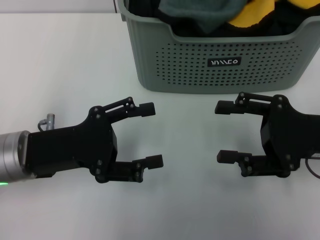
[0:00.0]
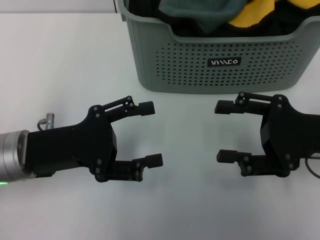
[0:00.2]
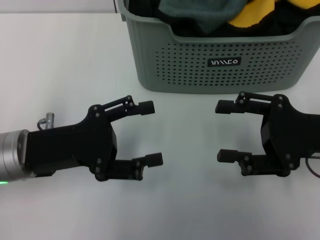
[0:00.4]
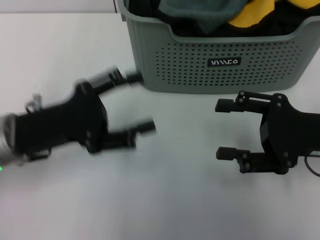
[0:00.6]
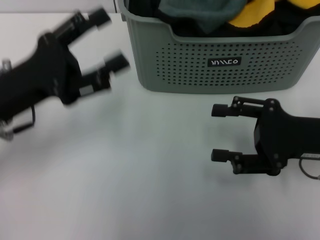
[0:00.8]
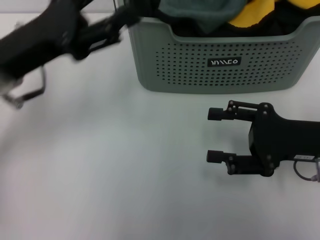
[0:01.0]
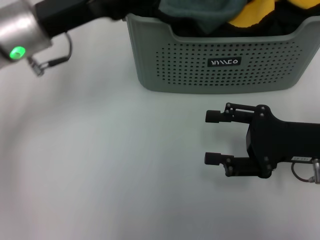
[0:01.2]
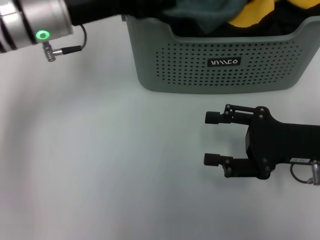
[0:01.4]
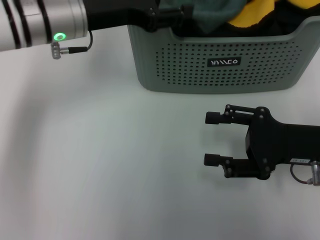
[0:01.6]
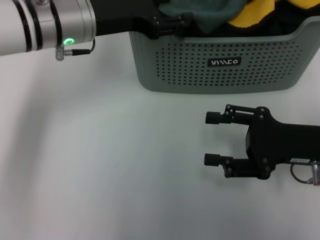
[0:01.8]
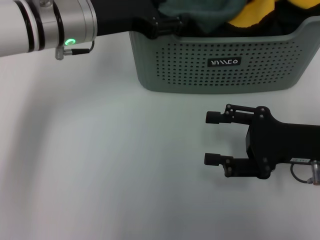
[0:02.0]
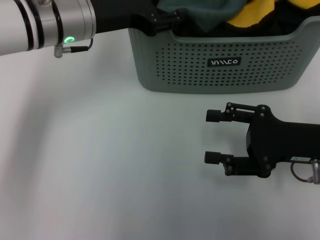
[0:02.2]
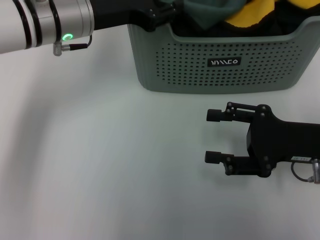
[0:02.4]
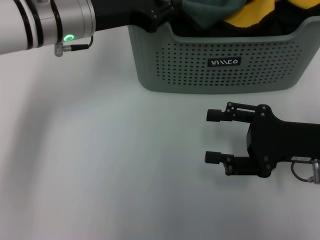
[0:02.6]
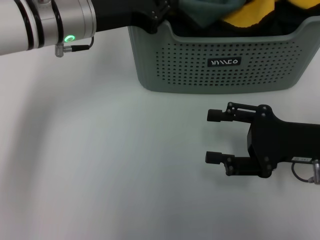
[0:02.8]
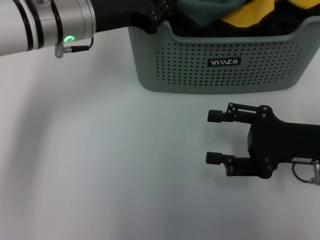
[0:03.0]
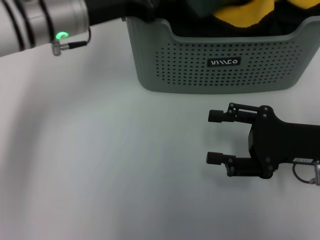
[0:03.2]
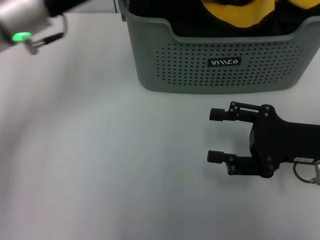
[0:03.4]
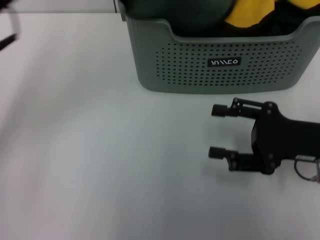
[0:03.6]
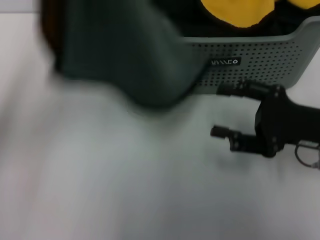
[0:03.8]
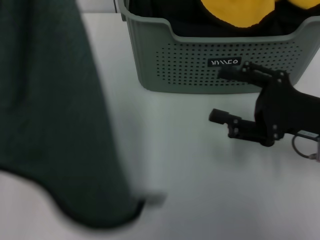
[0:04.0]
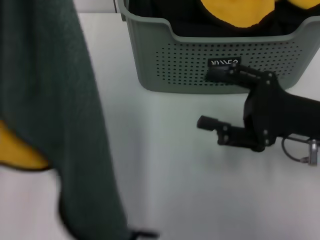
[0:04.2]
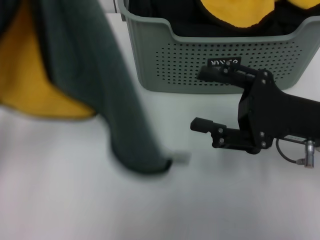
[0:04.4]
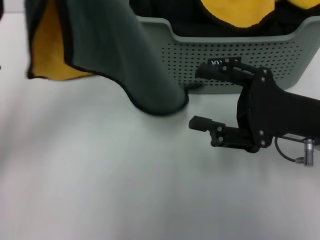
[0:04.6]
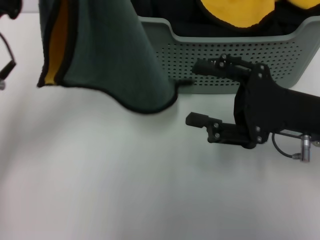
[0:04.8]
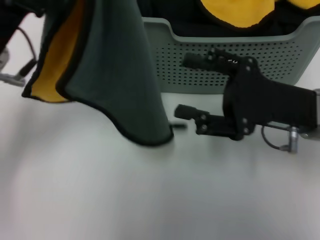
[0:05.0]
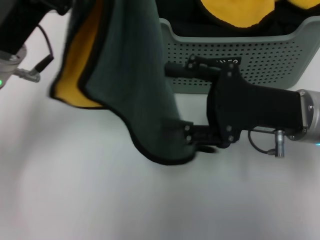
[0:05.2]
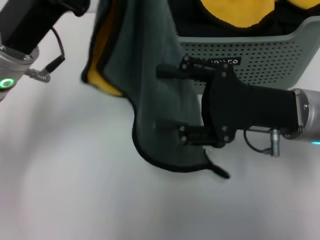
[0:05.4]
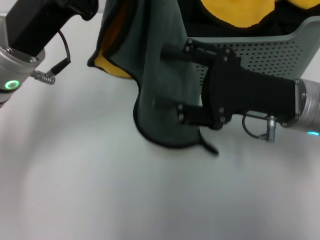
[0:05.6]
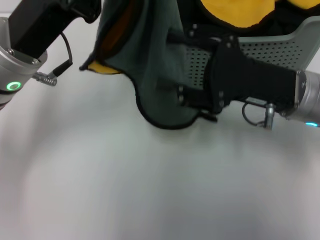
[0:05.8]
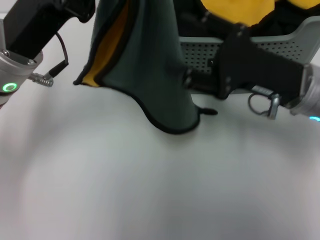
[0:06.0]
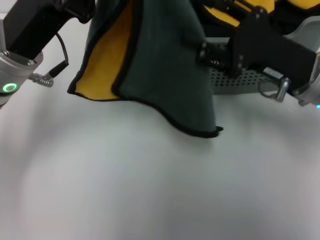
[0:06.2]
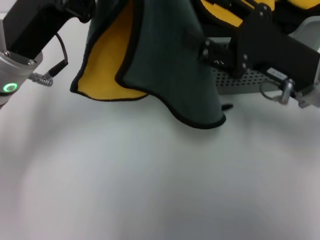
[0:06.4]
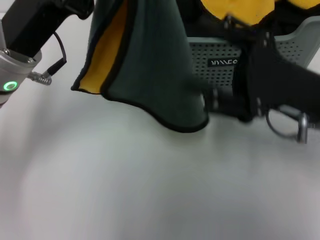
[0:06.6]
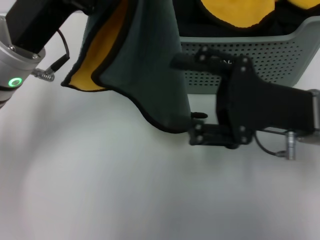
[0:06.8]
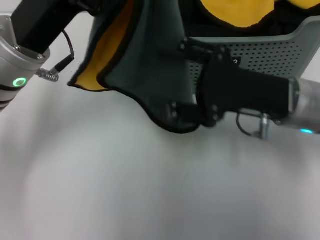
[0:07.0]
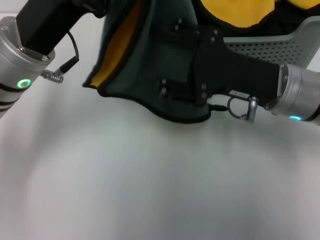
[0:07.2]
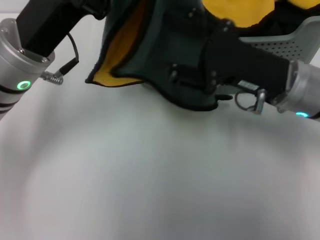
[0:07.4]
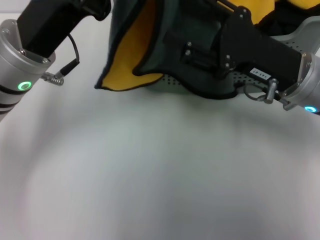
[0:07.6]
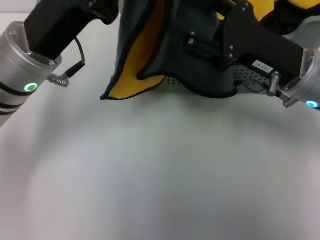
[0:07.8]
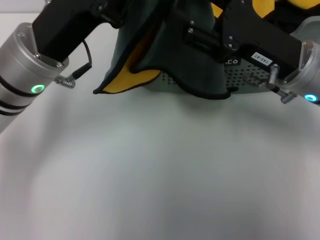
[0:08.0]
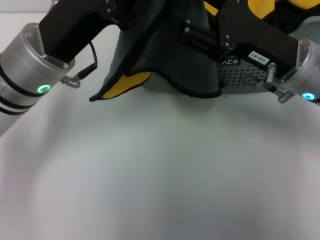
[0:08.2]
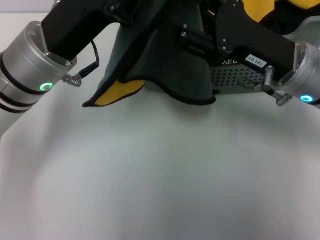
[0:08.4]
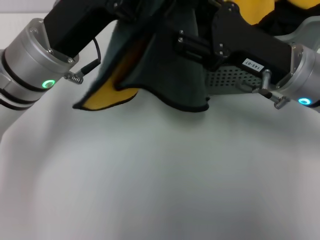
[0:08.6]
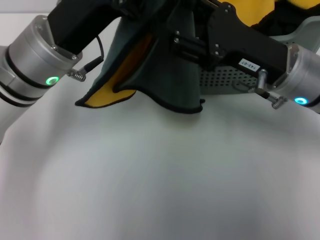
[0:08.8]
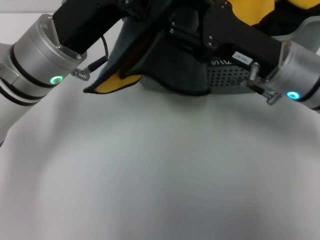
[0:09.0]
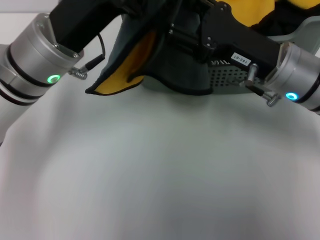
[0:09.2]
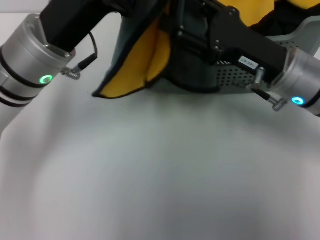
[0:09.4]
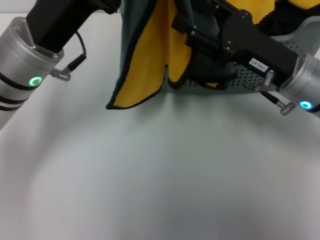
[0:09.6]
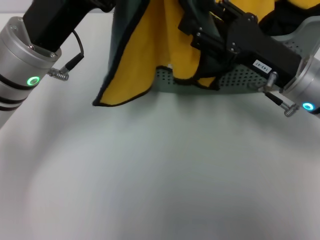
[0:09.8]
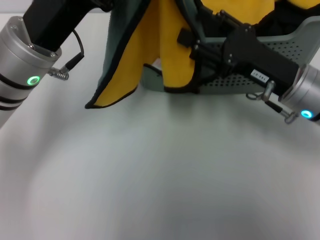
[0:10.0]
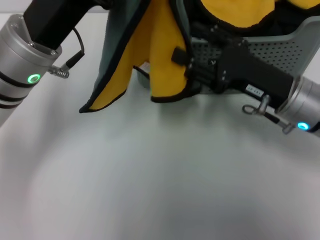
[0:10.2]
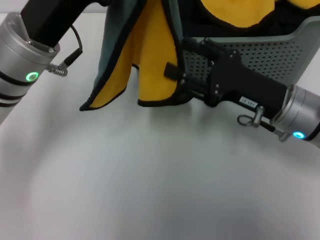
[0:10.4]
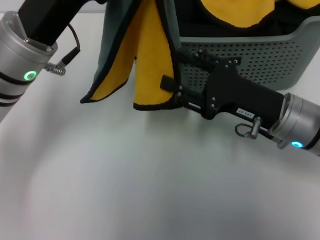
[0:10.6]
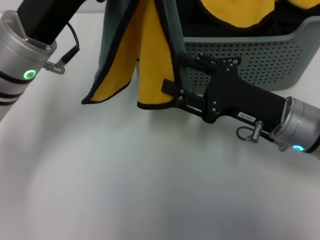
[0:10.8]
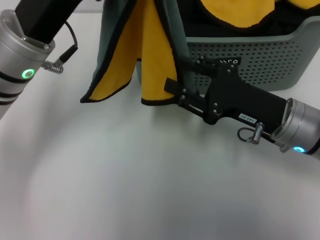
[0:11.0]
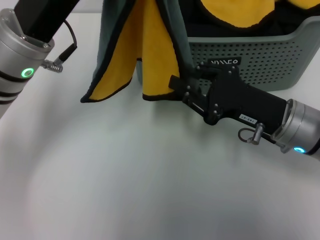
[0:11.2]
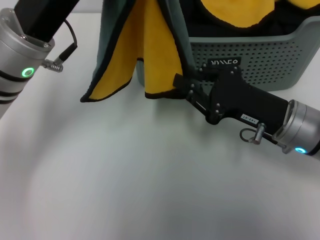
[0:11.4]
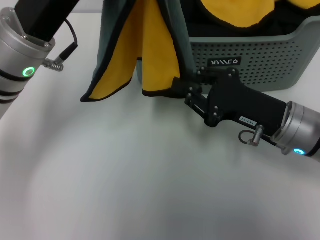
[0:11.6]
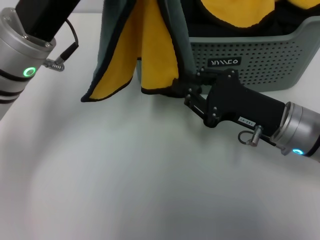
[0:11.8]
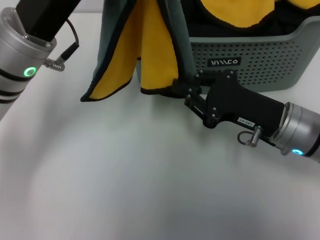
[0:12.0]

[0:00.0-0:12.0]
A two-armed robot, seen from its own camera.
Task of the whole recording: pick up the towel from the storage box and lay it flat on the table.
Step, 0:00.0 to 0:03.0: Pick up a towel with the left gripper.
0:00.0 to 0:01.6: The left gripper goes about 15 cm forward, upward and to the right.
0:01.6 to 0:03.0: The left gripper closes up.
0:03.0 to 0:04.4: The left gripper moves backward and to the left, approximately 15 cm.
0:04.4 to 0:06.0: The left gripper is displaced to the right by about 5 cm.
0:09.0 to 0:10.4: The right gripper moves about 5 cm.
0:10.4 to 0:12.0: The right gripper closes up.

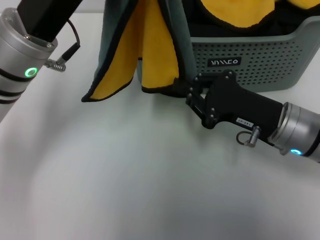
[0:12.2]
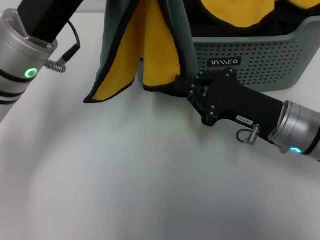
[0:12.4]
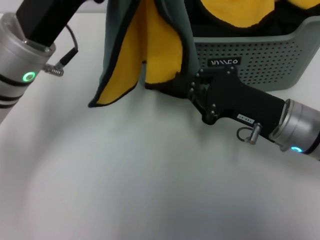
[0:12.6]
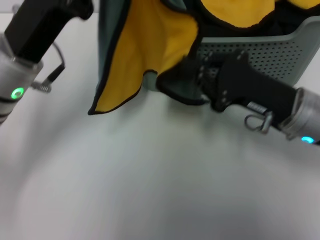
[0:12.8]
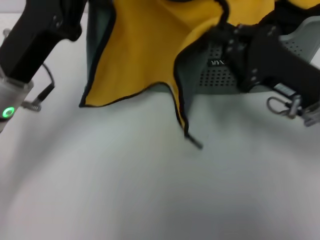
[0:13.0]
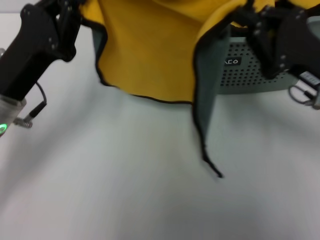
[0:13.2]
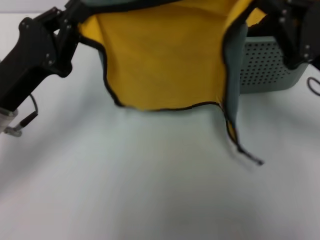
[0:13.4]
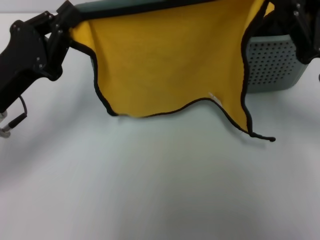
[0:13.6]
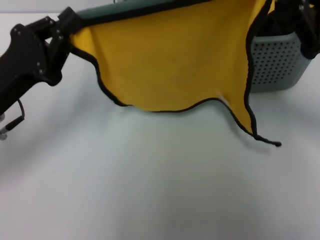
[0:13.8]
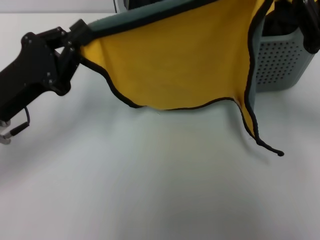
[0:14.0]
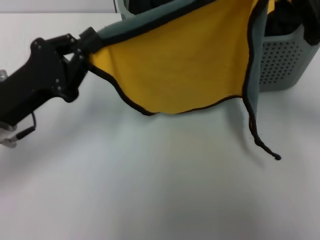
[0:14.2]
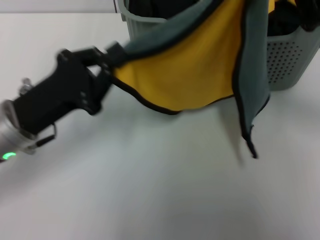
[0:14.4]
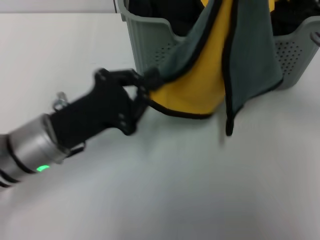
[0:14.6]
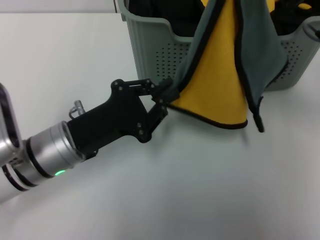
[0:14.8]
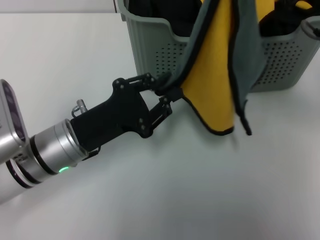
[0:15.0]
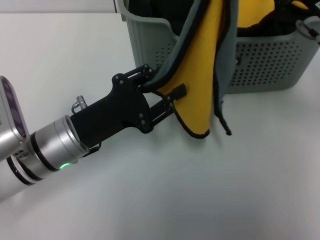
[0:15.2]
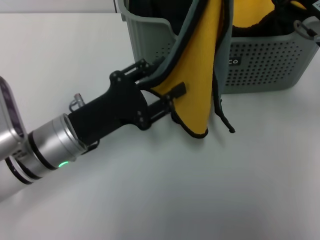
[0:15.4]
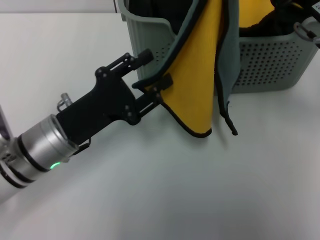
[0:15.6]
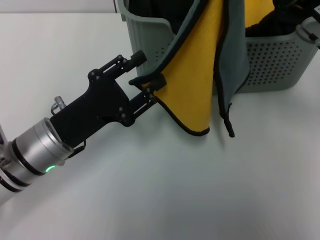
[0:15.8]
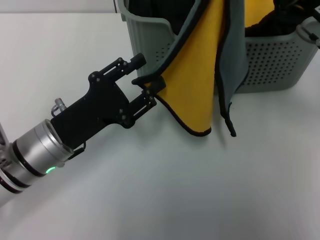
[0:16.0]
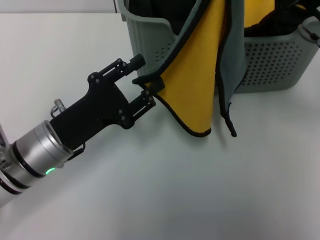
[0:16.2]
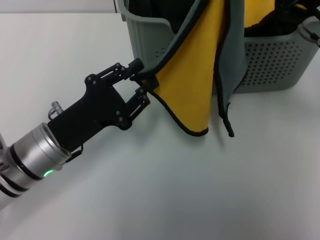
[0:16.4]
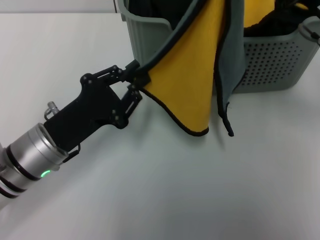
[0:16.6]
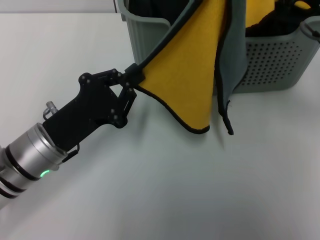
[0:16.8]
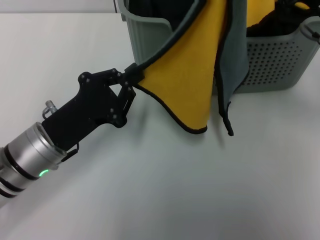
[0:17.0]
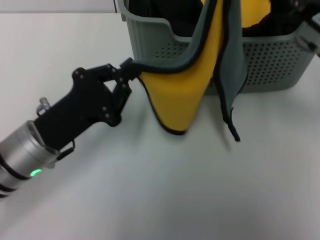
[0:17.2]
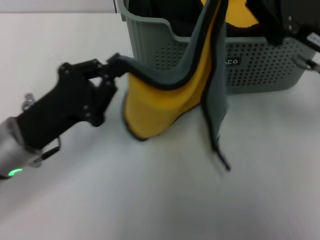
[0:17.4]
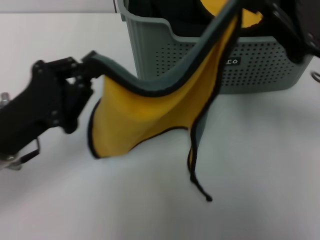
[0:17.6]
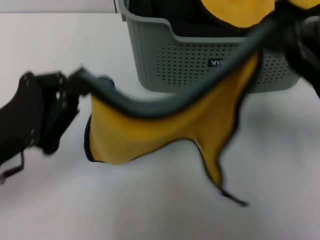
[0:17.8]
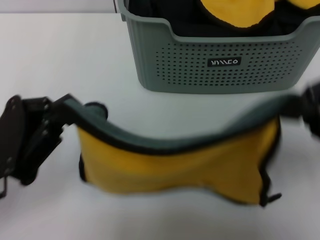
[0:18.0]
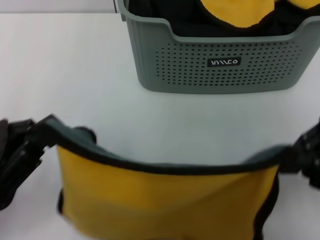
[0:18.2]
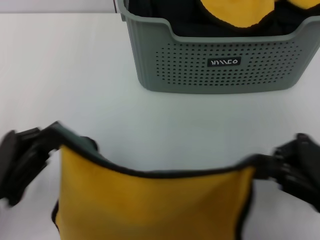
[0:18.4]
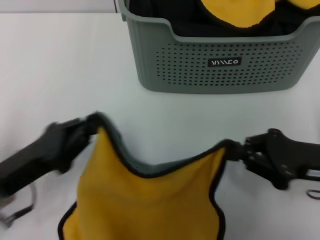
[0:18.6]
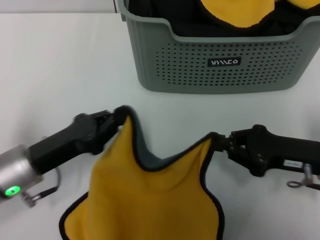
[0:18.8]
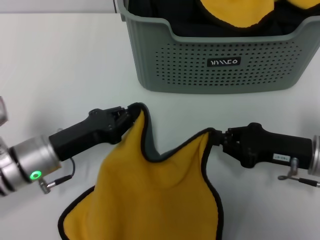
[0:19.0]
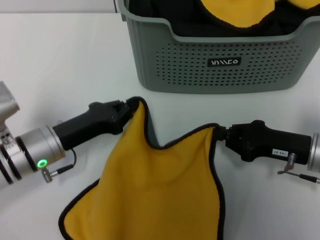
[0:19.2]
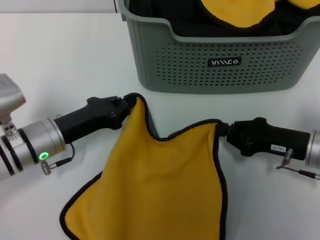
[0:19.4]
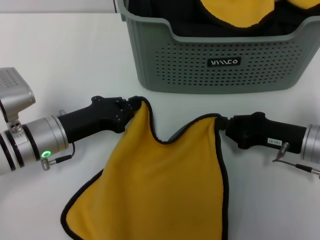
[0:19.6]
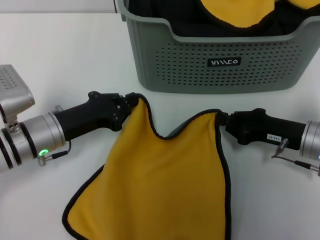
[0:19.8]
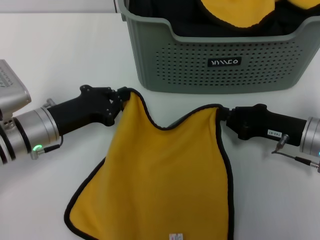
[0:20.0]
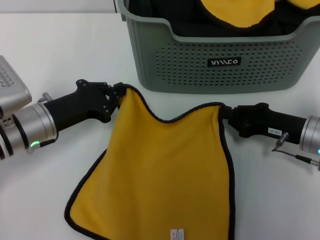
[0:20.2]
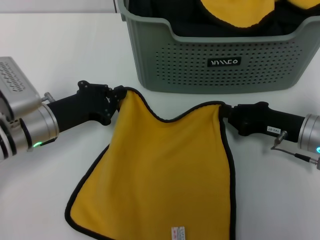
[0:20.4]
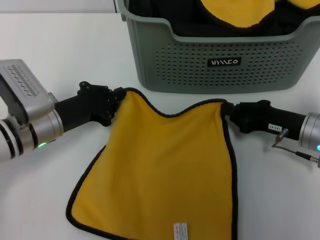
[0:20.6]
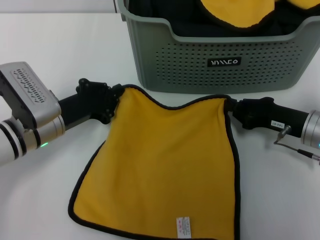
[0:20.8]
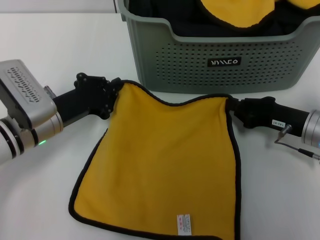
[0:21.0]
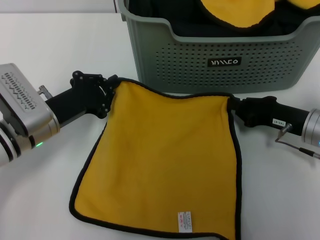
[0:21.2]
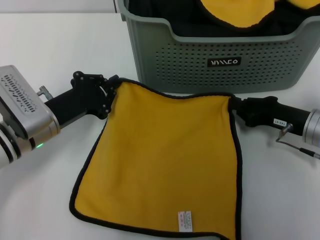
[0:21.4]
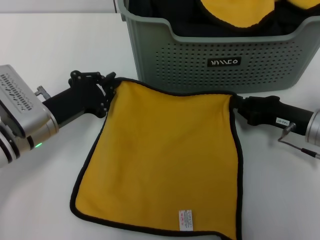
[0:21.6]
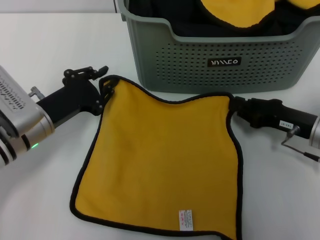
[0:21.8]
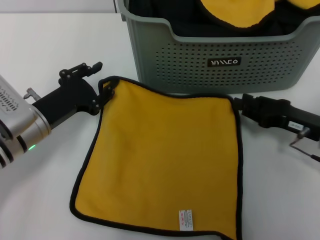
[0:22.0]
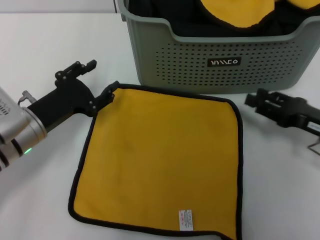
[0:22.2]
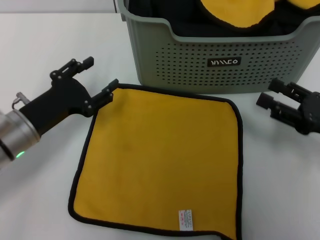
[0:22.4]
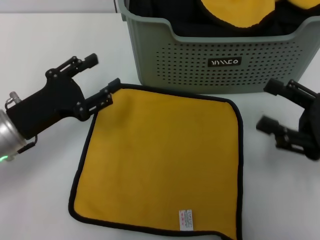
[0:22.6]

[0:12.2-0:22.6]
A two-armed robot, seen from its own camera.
Task of the whole recording: pick up the towel from the storage box and lay it flat on the table.
Step, 0:12.6 to 0:21.8: Spread the towel flat with the right gripper.
0:12.2 to 0:13.6: The right gripper shifts some 10 cm to the right and upward, while the left gripper is displaced to the left, downward and backward by roughly 10 cm.
0:13.6 to 0:15.2: The right gripper ends up approximately 5 cm from where it was; the left gripper is displaced to the right by some 10 cm.
0:15.2 to 0:16.6: The grippers make only small movements.
0:16.6 to 0:18.2: The left gripper travels backward, to the left and upward by about 10 cm, and closes up, while the right gripper shifts roughly 10 cm backward, to the right and downward.
0:18.2 to 0:19.6: The left gripper heads forward, downward and to the right, covering roughly 15 cm. The right gripper is displaced downward and forward by approximately 10 cm.
0:21.2 to 0:22.6: The left gripper shifts by approximately 5 cm, and opens up. Meanwhile the right gripper shifts approximately 10 cm backward and upward, and opens up.
